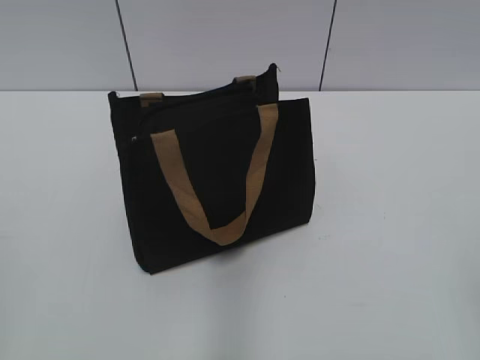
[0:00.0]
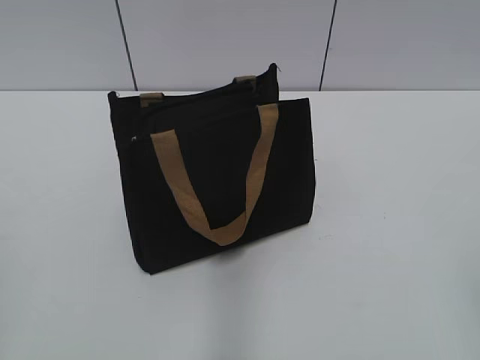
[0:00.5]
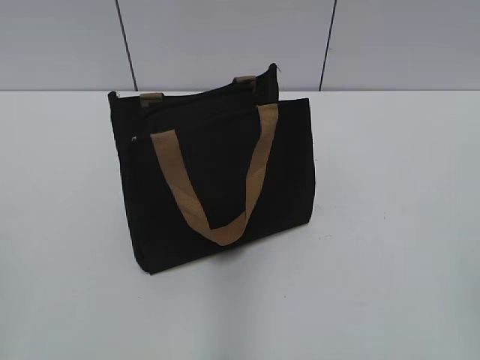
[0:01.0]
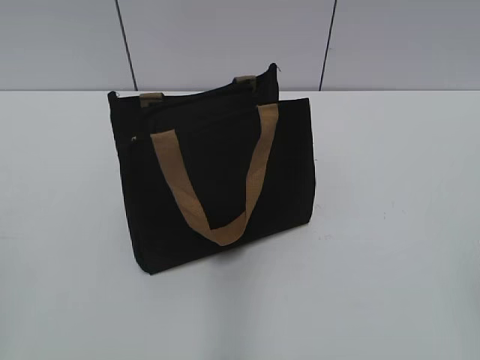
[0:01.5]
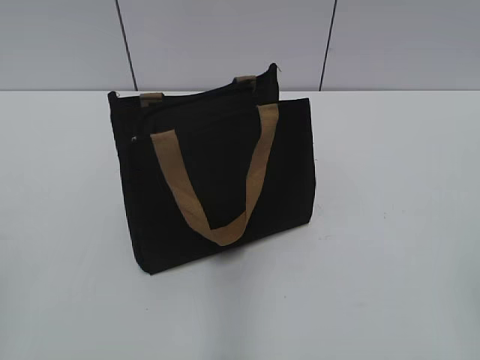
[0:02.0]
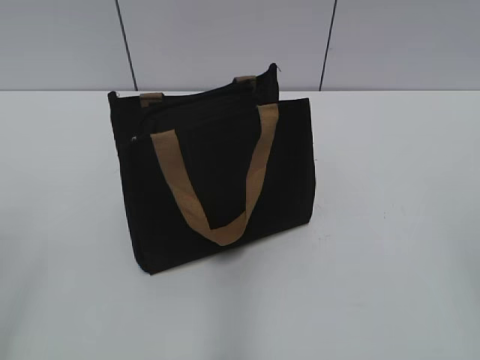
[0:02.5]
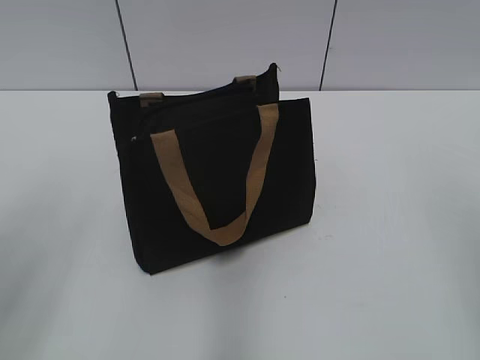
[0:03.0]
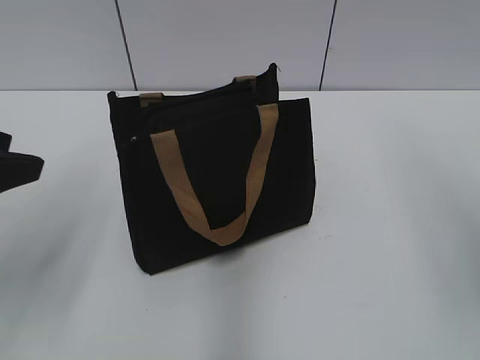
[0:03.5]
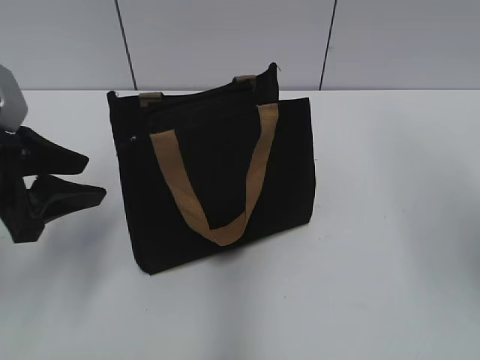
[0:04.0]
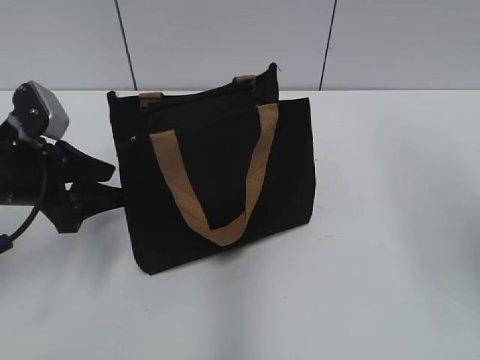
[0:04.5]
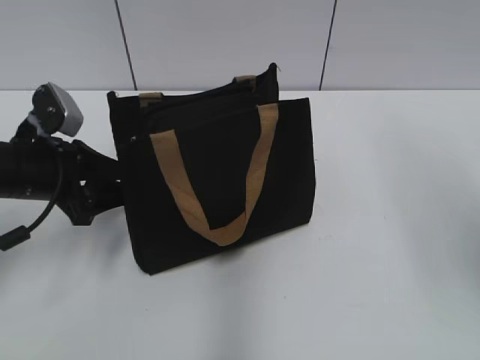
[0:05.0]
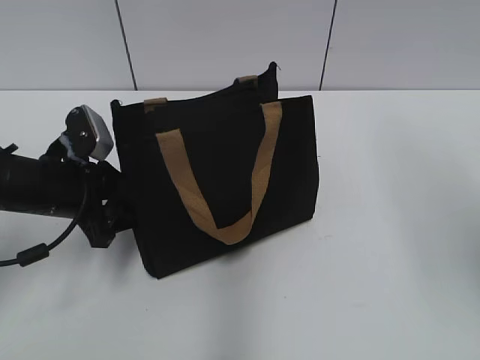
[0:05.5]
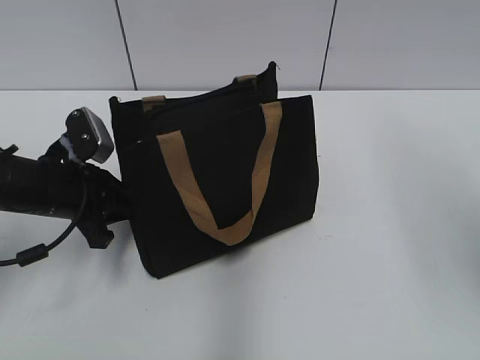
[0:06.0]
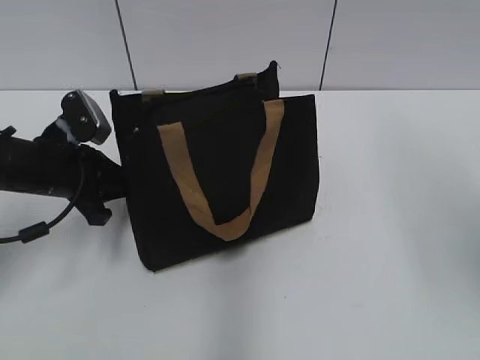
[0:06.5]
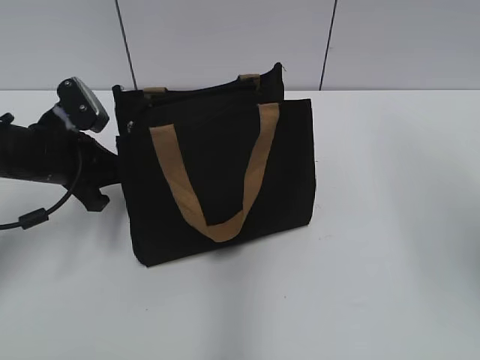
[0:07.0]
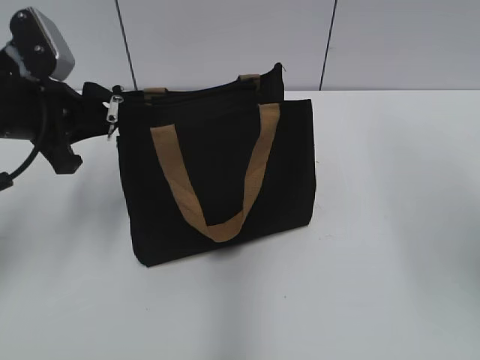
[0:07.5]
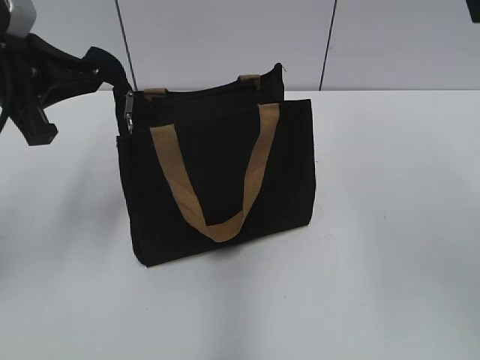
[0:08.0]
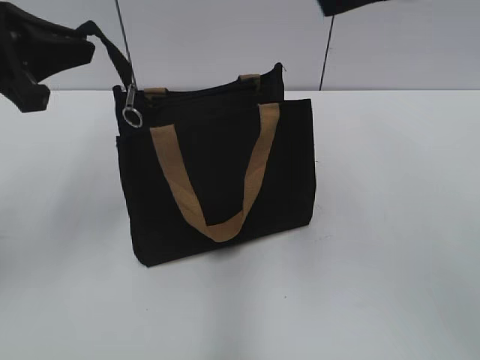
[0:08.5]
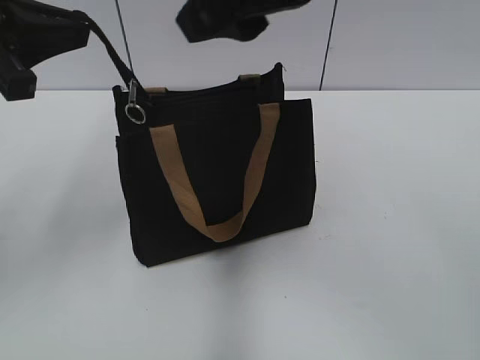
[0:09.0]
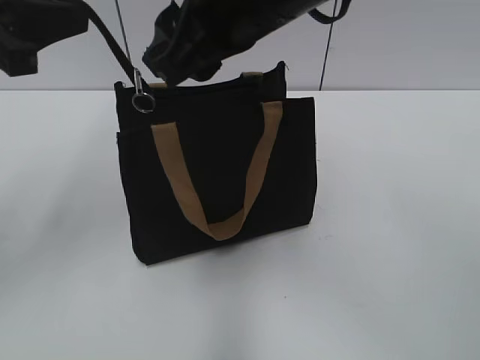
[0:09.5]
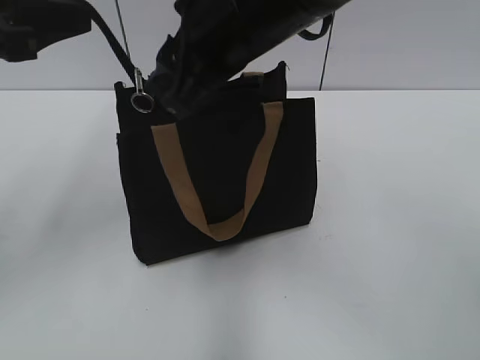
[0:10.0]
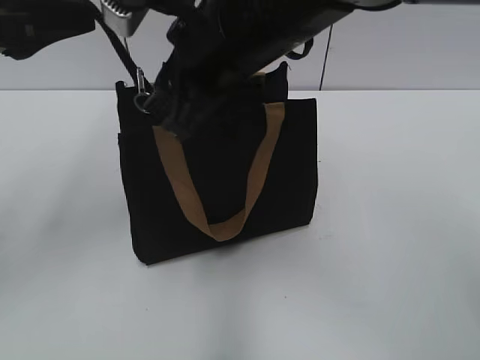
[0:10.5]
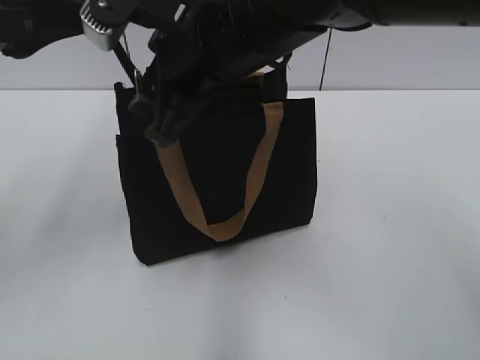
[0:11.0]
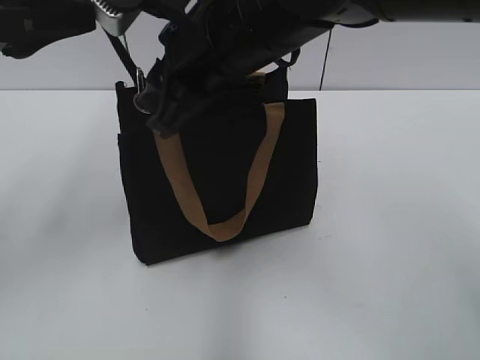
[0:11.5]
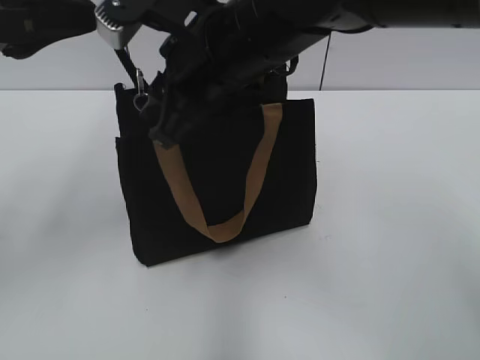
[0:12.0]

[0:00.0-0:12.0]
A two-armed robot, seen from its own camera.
0:02.0 to 0:04.0: The left gripper shifts some 25 cm forward, while the right gripper travels forward and upward by about 20 cm.
0:04.0 to 0:06.0: The left gripper goes roughly 10 cm downward and forward, and closes up.
0:06.0 to 0:08.0: The left gripper shifts some 15 cm upward. The right gripper moves roughly 5 cm.
0:08.0 to 0:10.0: The right gripper is displaced to the left, forward and downward by roughly 25 cm, while the left gripper shifts by roughly 5 cm.
0:10.0 to 0:12.0: The grippers stay close to where they were, moving slightly.

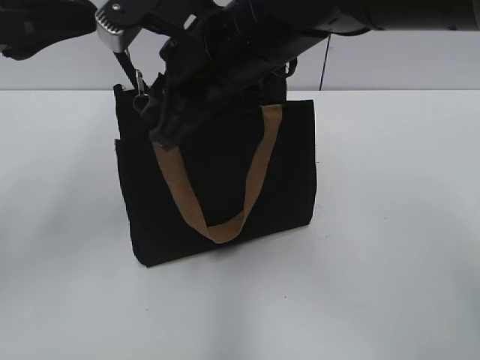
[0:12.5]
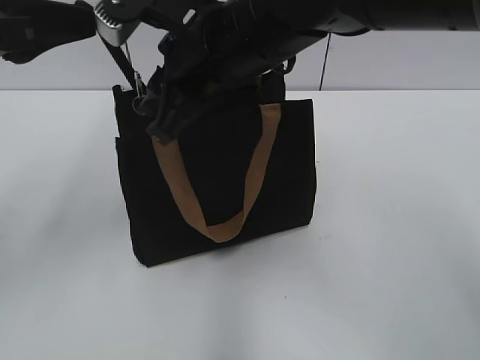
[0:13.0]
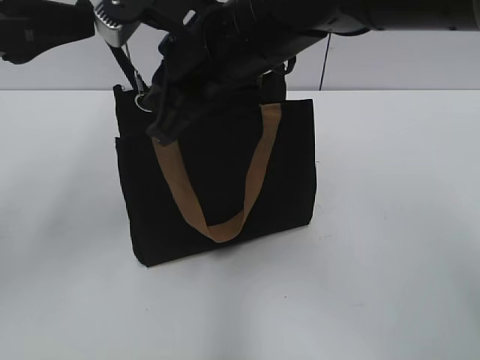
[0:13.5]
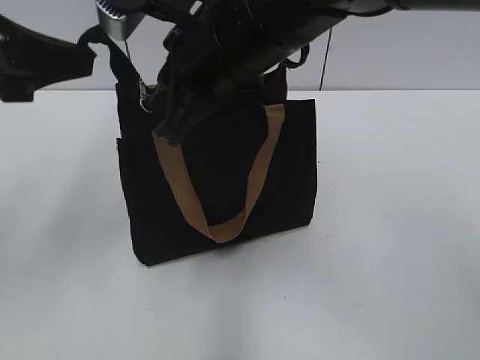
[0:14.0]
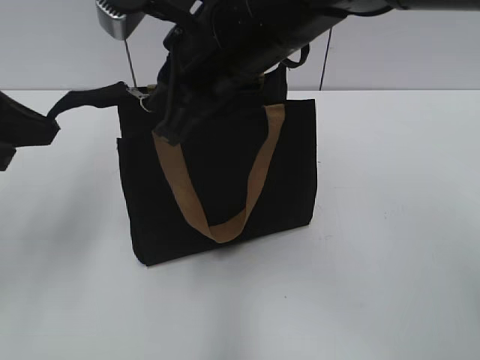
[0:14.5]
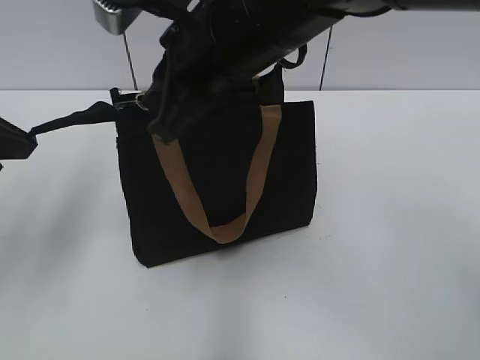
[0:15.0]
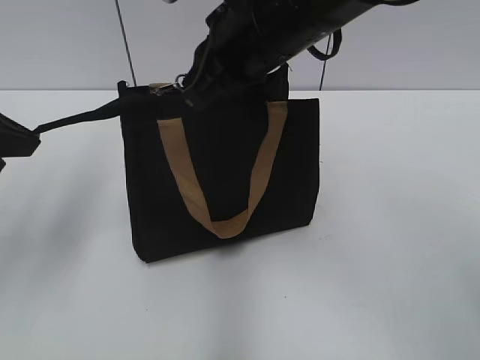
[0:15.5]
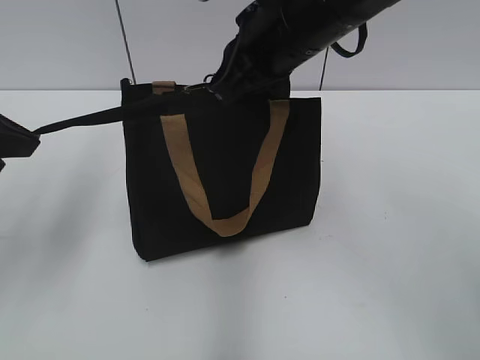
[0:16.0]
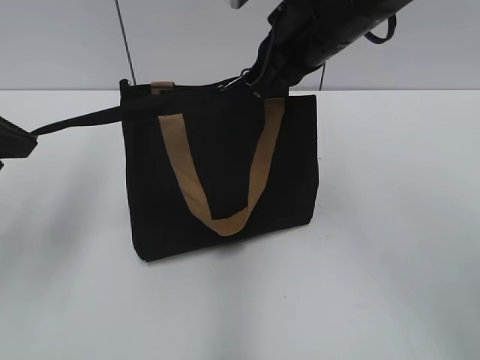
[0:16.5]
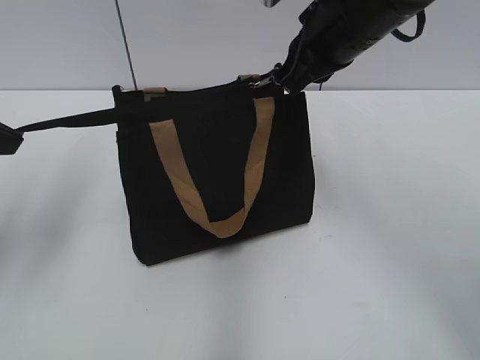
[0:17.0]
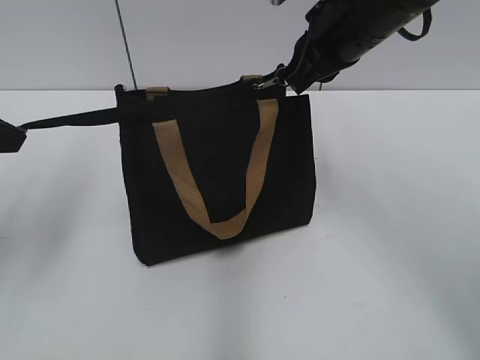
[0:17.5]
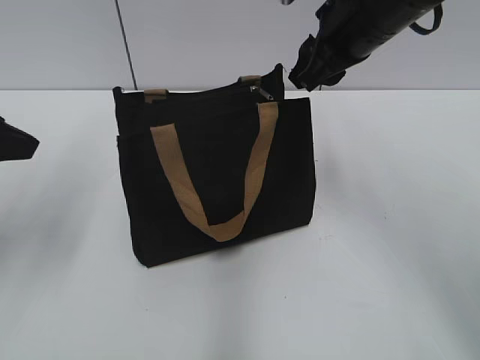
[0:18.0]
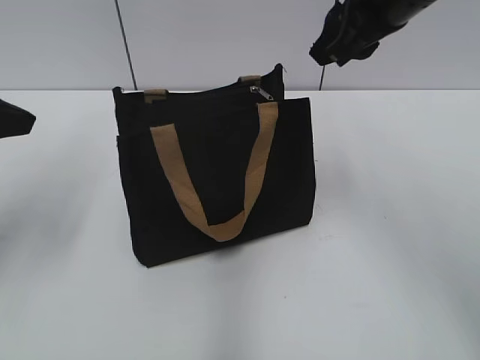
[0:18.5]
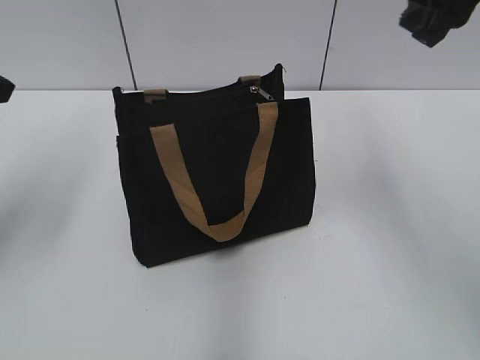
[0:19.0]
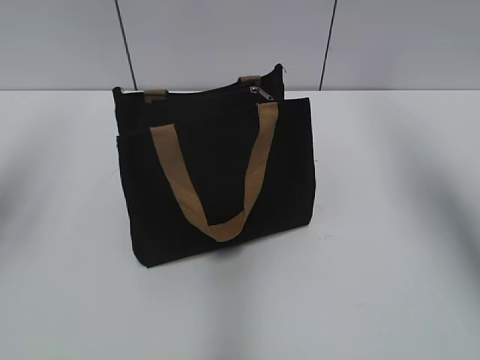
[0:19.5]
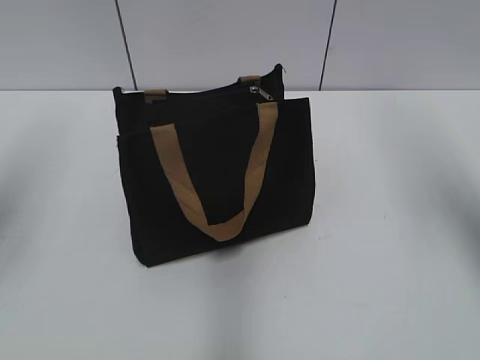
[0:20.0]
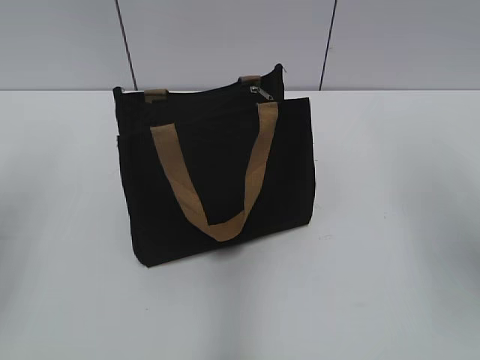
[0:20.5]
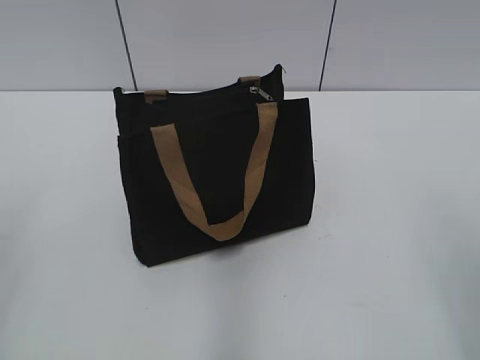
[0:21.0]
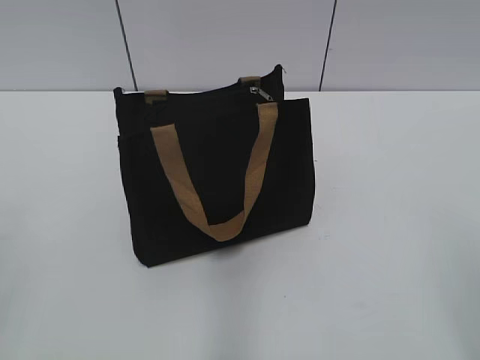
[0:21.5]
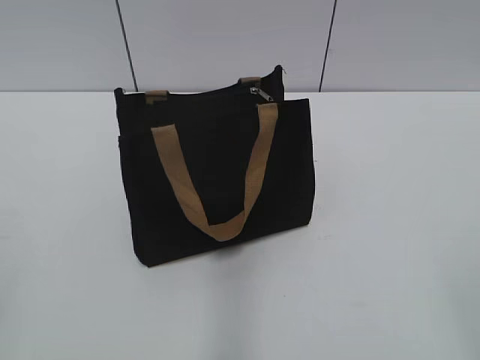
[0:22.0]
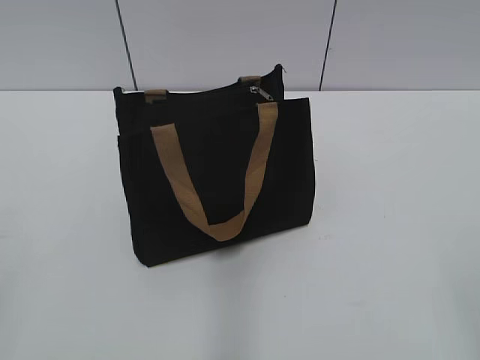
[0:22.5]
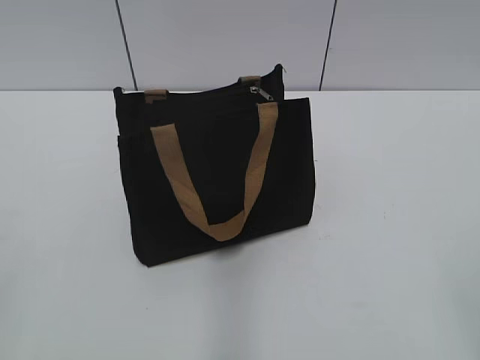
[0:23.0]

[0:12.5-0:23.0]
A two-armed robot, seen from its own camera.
Step, 0:12.5 to 0:17.5: Zip up the bag with your right hand.
0:12.5 to 0:14.5: The right gripper closes its fingers.
0:14.5 to 0:16.5: The right gripper heads to the right and forward, covering about 10 cm.
0:16.5 to 0:19.0: The left gripper opens. The right gripper moves to the right and upward, approximately 10 cm, and opens up.
0:19.0 to 0:21.0: The two grippers go approximately 20 cm backward.

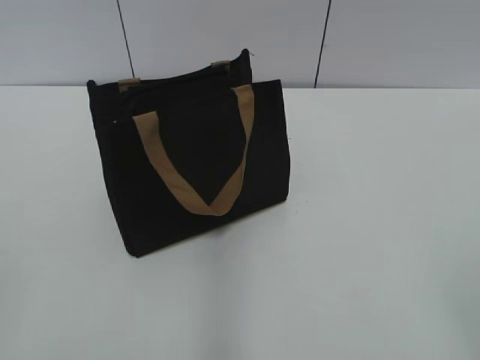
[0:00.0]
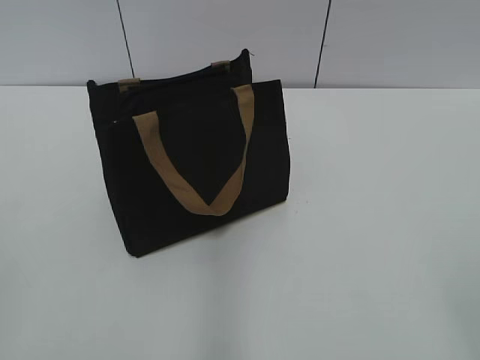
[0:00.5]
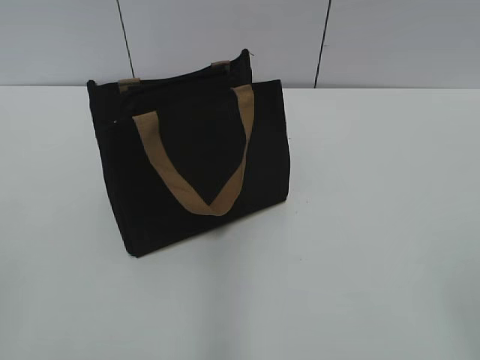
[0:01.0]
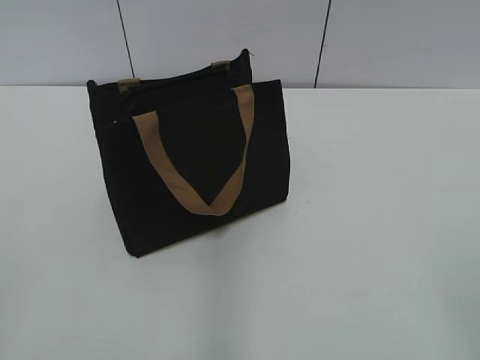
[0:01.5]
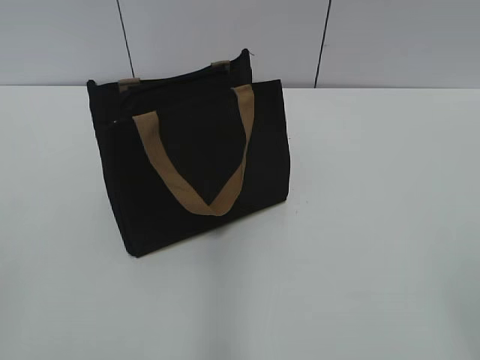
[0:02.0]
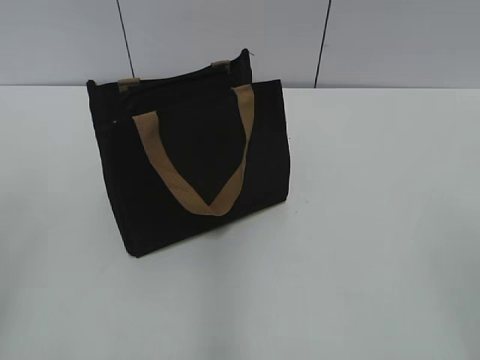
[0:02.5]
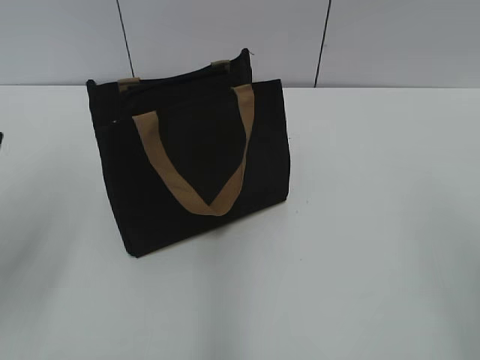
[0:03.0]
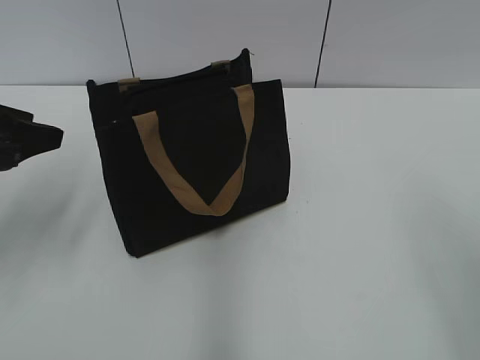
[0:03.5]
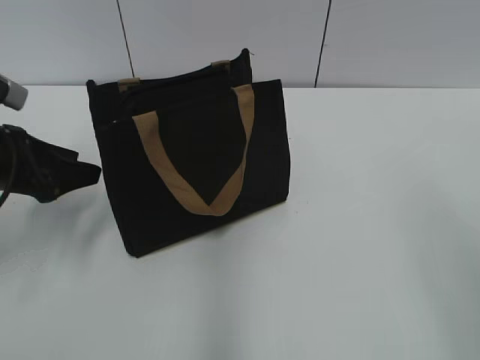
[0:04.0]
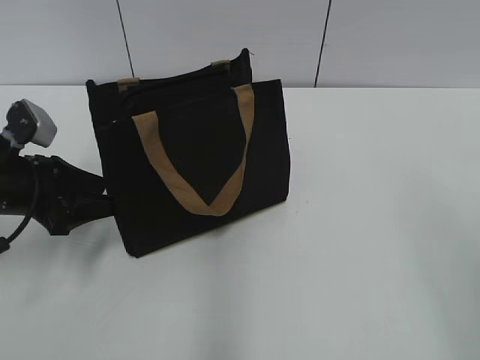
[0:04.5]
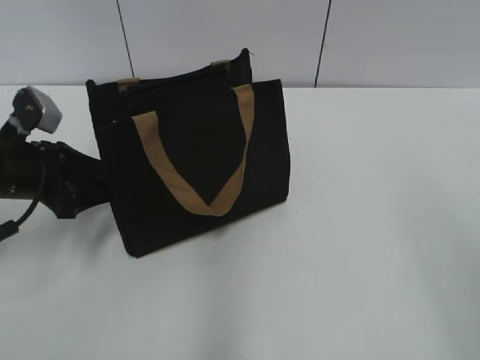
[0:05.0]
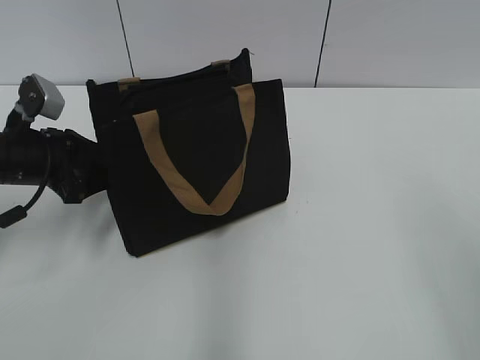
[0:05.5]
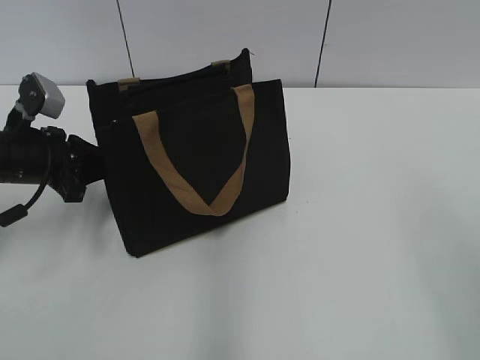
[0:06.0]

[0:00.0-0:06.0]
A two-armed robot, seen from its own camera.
0:02.0 to 0:04.0: The left gripper goes some 30 cm forward.
0:04.0 to 0:06.0: The left gripper changes place by about 5 cm, and closes.
